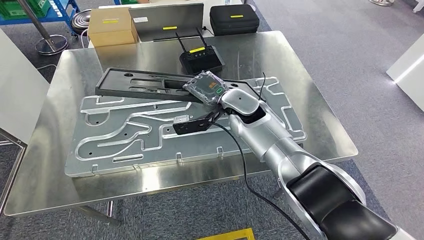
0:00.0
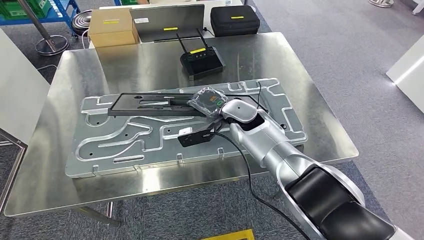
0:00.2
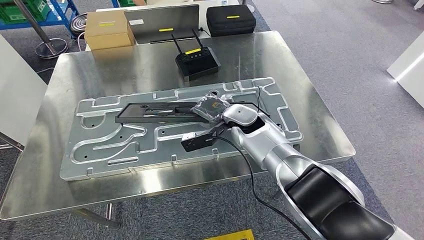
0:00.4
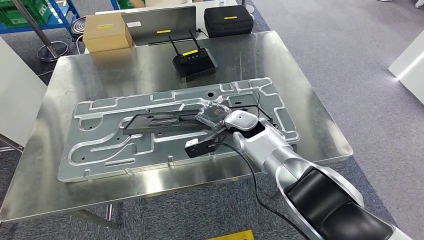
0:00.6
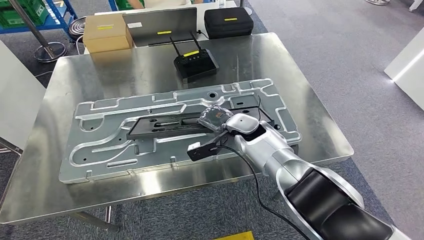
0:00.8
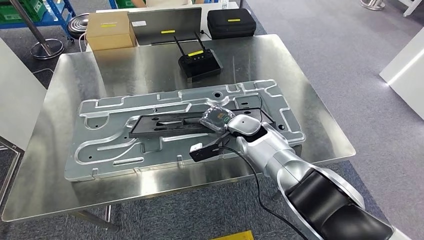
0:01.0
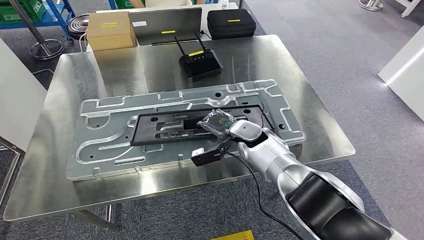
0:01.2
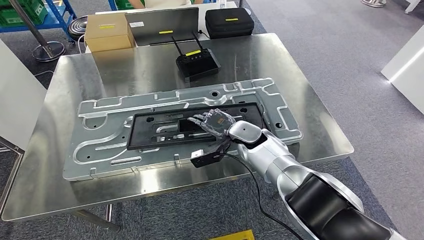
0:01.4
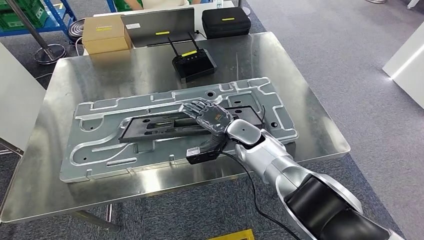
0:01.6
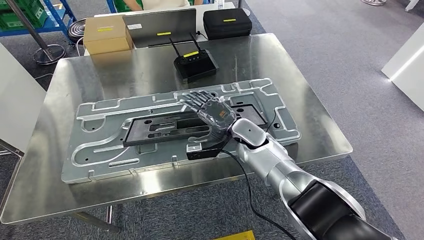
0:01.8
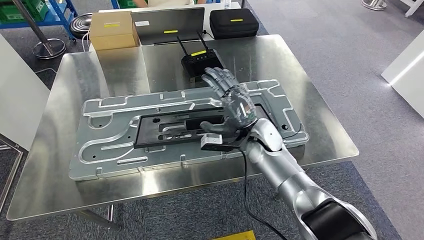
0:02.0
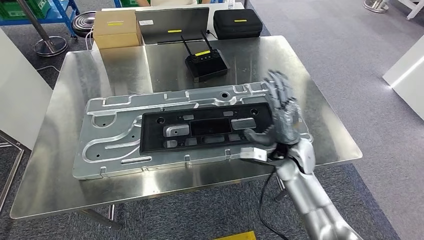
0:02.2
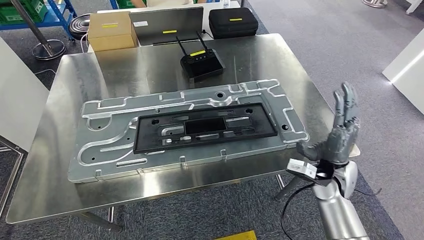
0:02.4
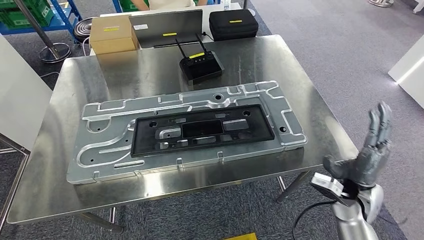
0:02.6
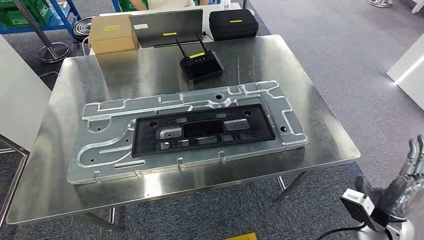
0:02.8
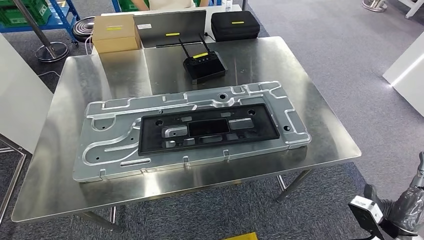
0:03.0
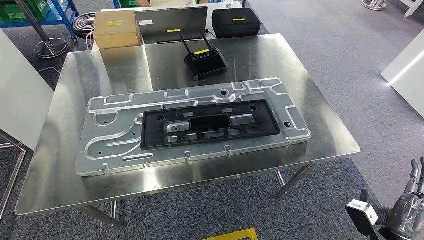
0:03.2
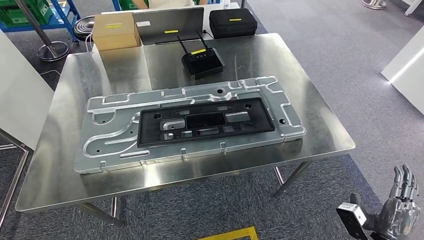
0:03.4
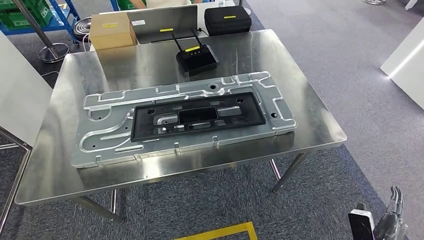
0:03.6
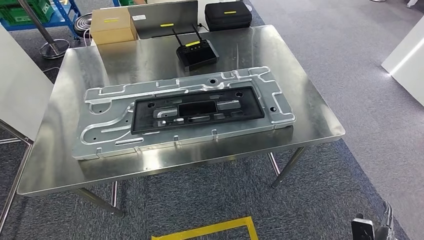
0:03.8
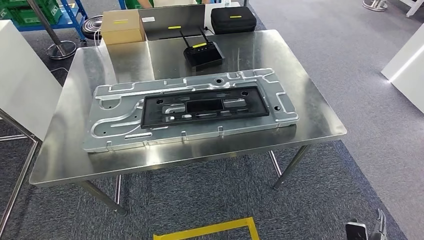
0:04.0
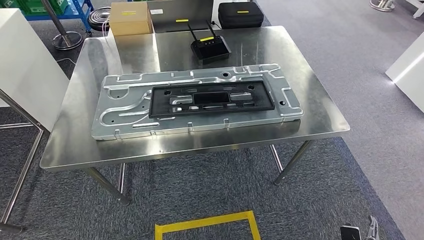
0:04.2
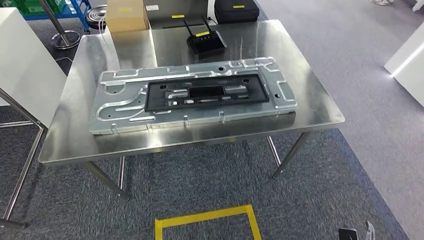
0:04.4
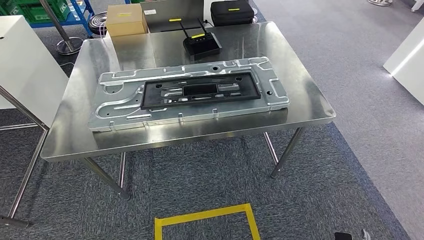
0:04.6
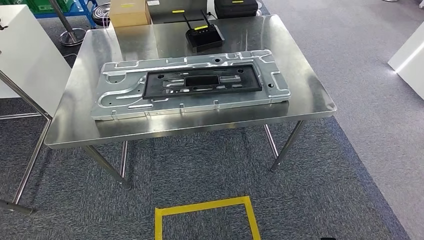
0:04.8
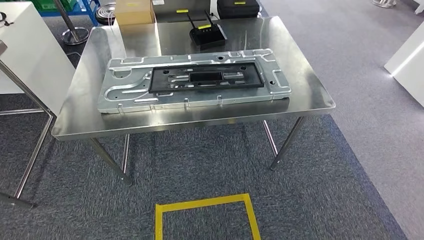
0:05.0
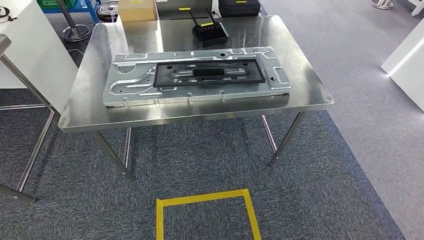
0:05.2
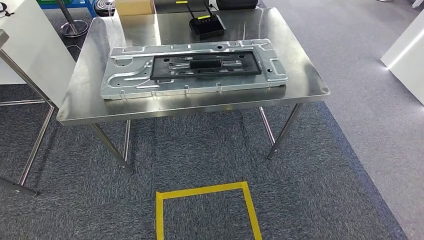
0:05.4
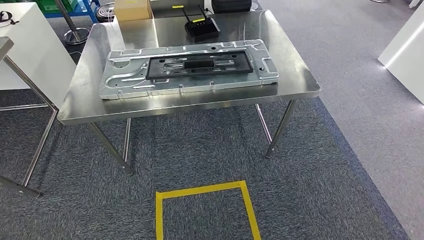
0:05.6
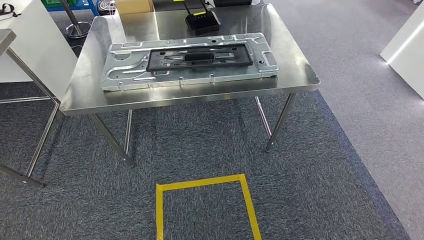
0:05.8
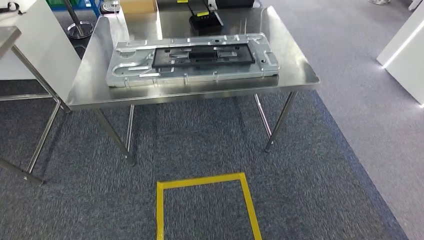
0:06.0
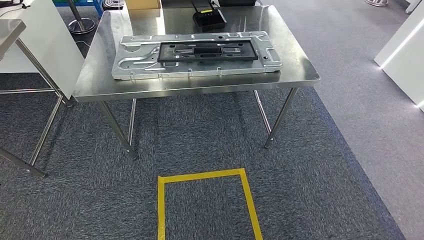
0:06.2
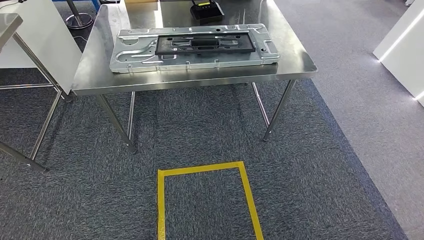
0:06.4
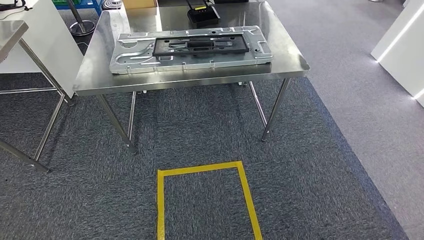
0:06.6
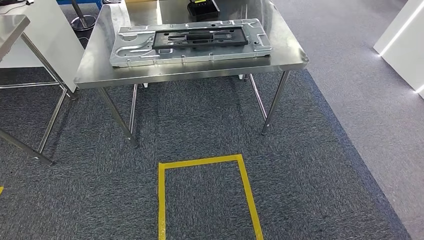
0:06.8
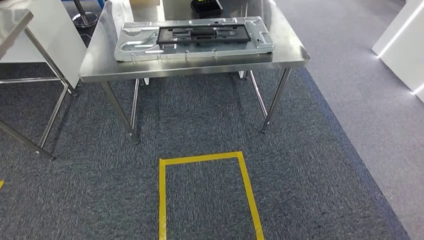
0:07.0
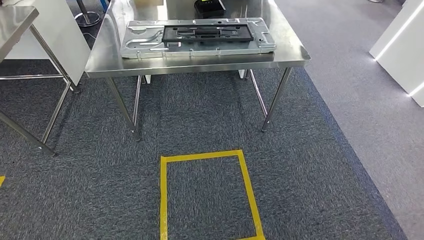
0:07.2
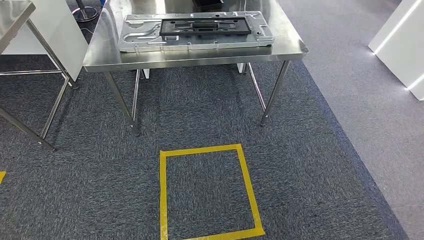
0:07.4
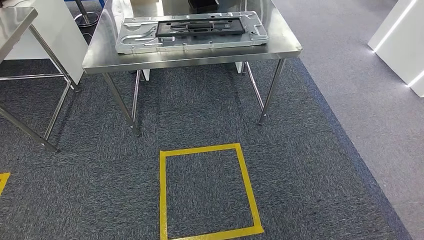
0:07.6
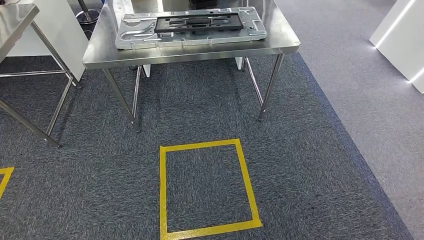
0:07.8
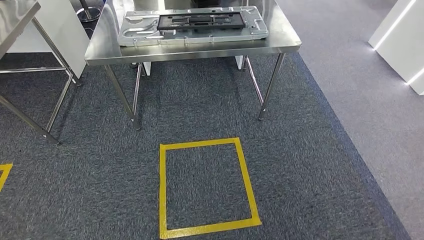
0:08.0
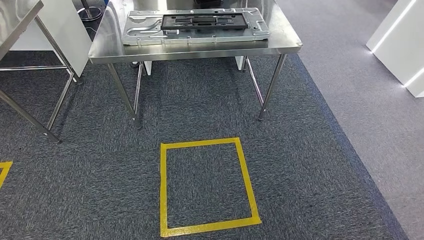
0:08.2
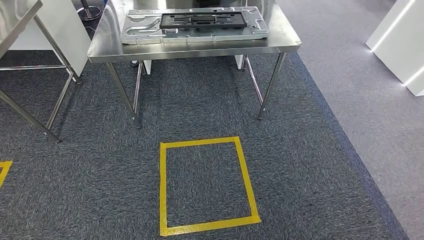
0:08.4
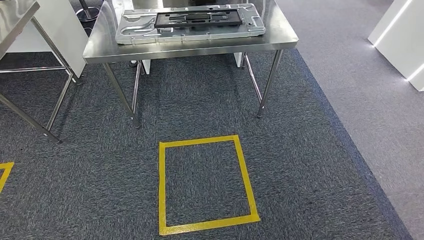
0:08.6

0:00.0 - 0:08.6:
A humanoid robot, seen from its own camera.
Step, 0:00.0 - 0:02.8: Insert the large material into the corresponding slot on the workbench.
Step, 0:04.2 - 0:08.6: Move to the initial position of the shelf.
0:07.2 - 0:08.6: The hands move only a little.
